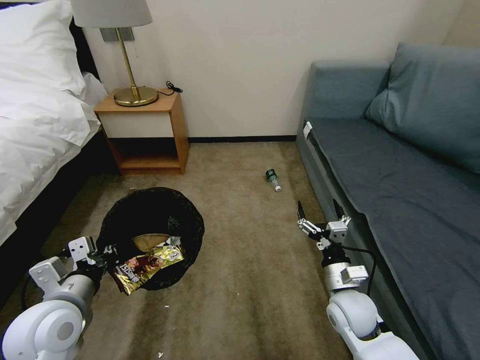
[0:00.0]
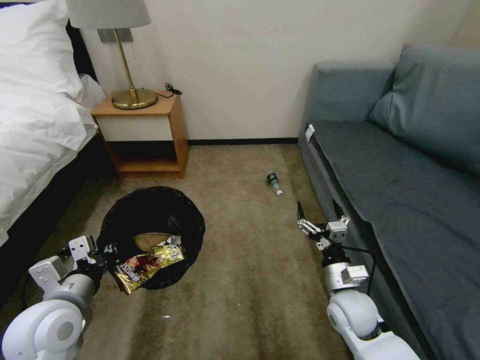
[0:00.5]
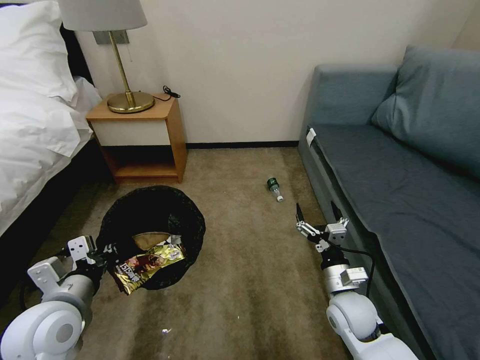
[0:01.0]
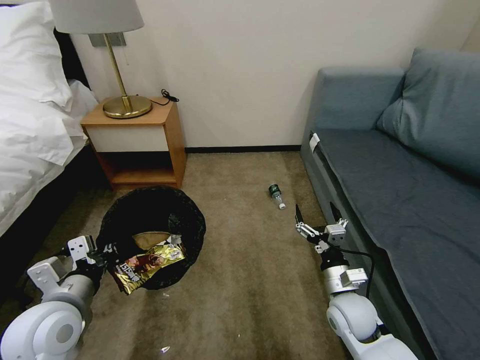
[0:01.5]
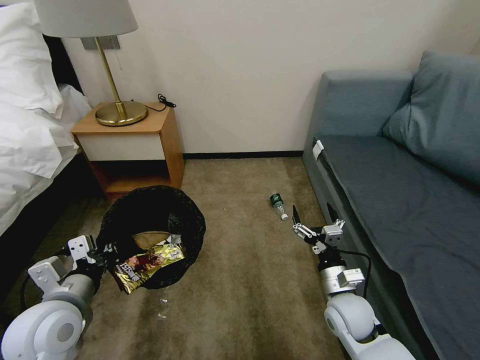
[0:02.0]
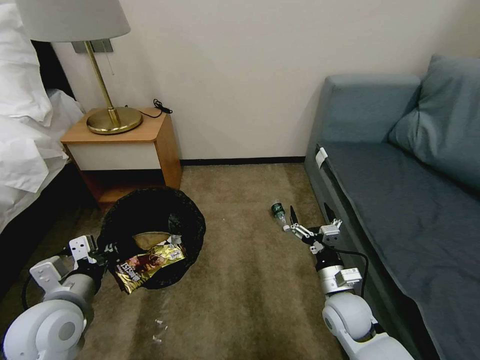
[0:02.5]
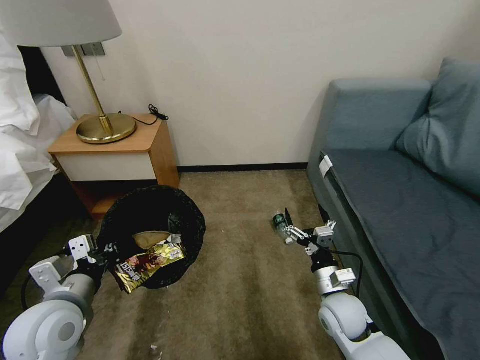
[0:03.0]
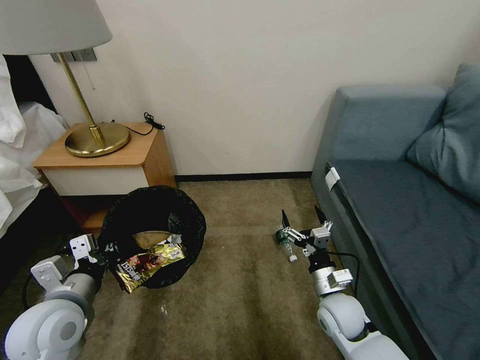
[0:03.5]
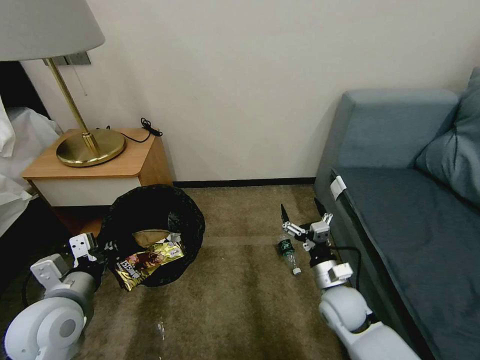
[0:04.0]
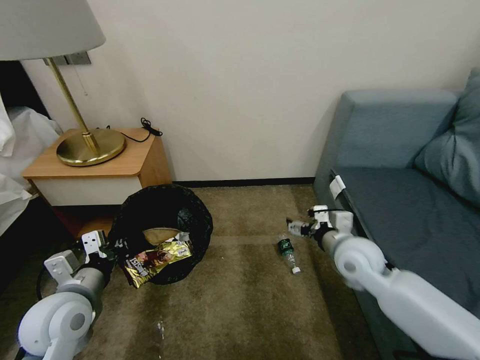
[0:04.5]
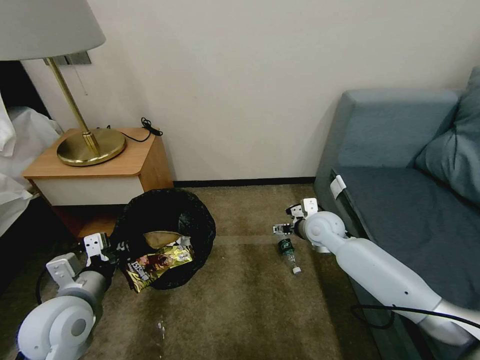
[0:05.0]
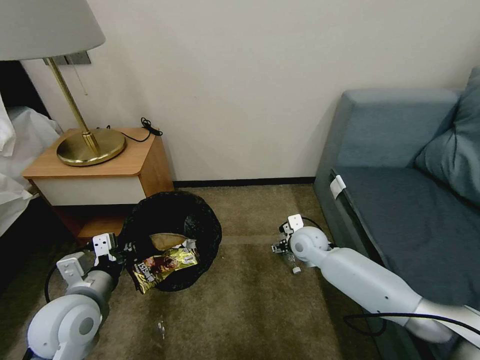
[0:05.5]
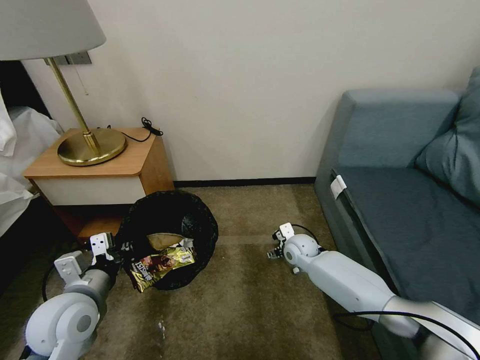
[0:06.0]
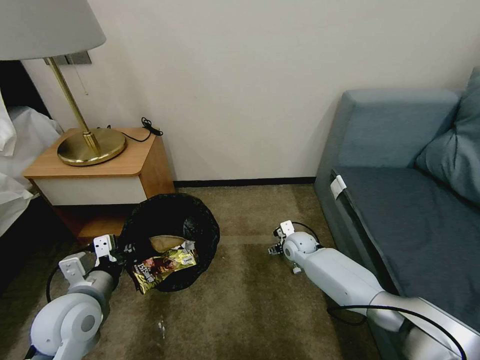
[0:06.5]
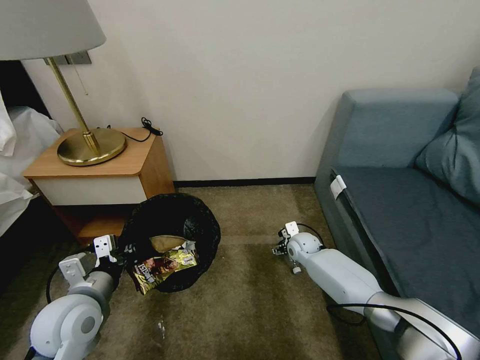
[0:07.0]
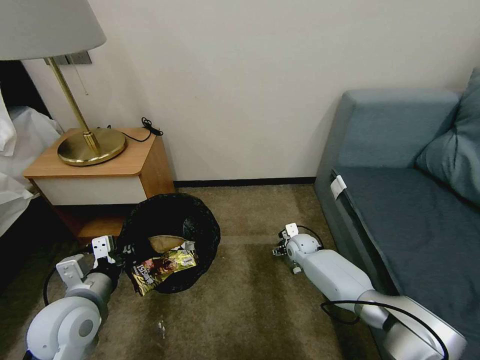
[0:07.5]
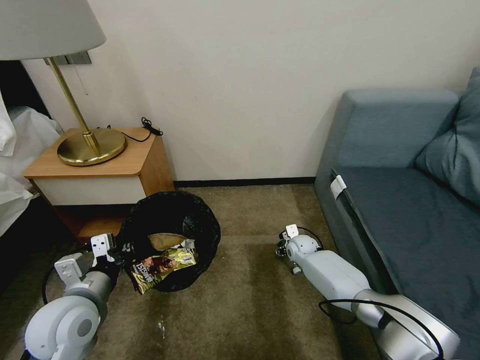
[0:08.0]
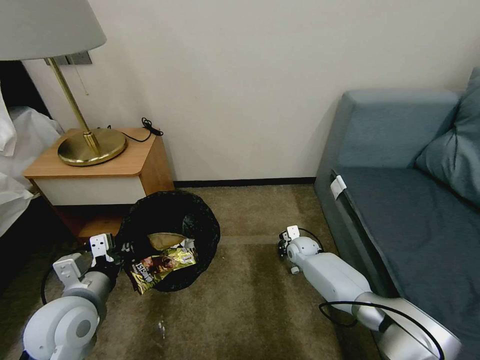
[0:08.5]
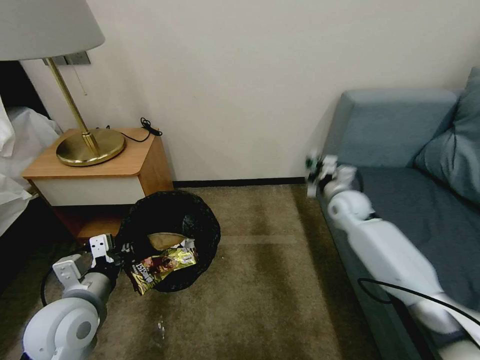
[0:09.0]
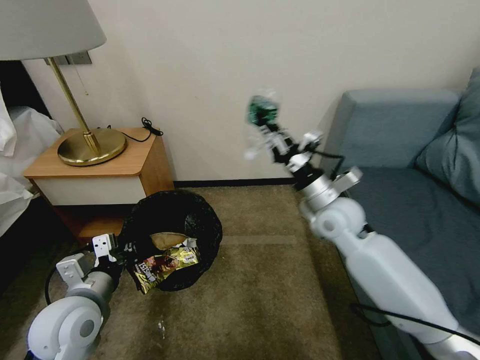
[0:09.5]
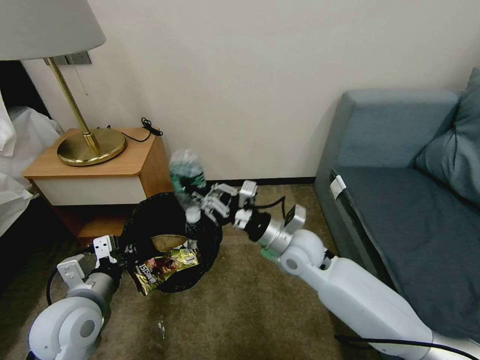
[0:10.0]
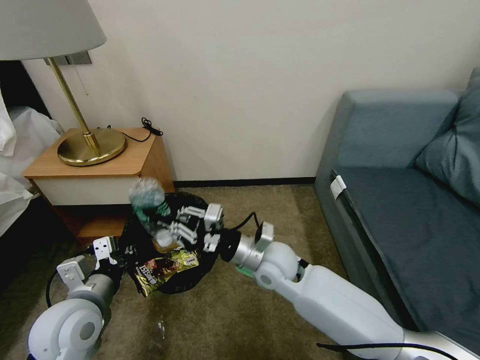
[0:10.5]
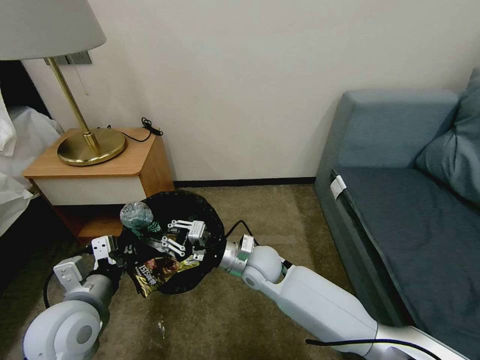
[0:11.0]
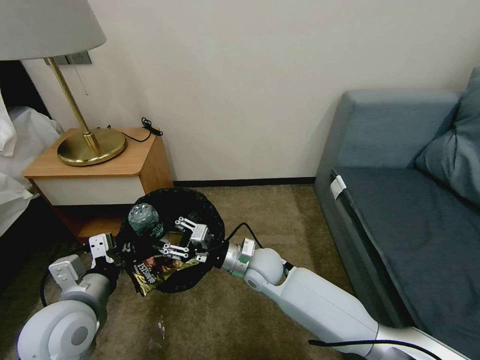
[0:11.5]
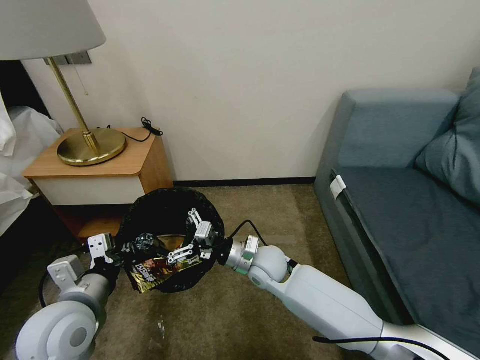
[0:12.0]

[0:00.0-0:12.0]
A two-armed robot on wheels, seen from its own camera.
Task of the whole recording: Pick up the trash bin, then pick up the garbage on the floor and place it into the trash bin.
0:04.0 to 0:06.0: The right gripper travels forward by roughly 20 cm.
0:06.0 to 0:08.0: The right gripper goes approximately 5 cm downward.
0:08.0 to 0:10.0: The right gripper travels upward and backward by roughly 25 cm, and closes.
0:10.0 to 0:12.0: The right gripper shifts some 10 cm downward and to the left, and opens.

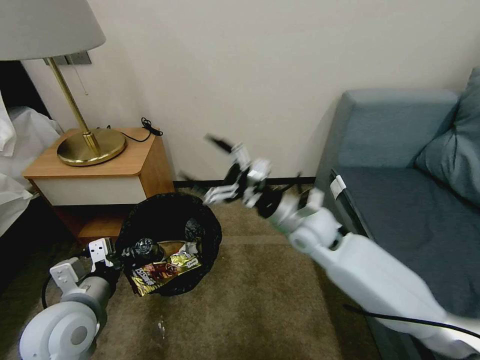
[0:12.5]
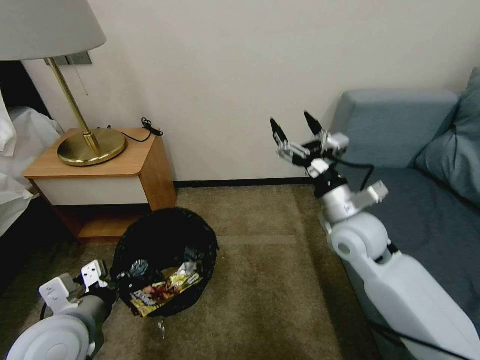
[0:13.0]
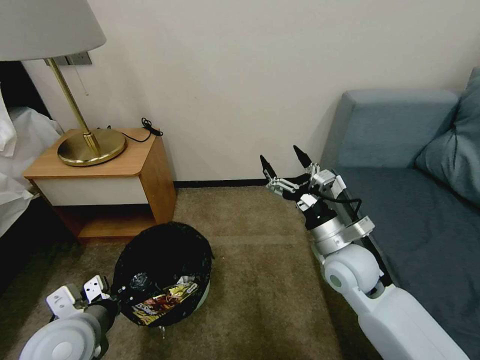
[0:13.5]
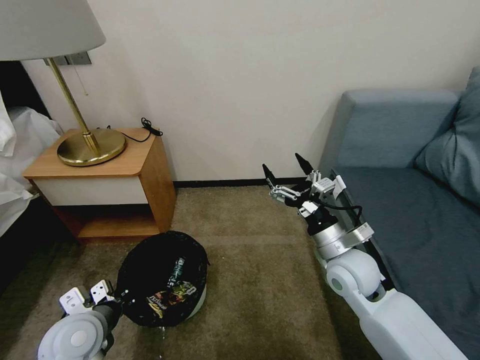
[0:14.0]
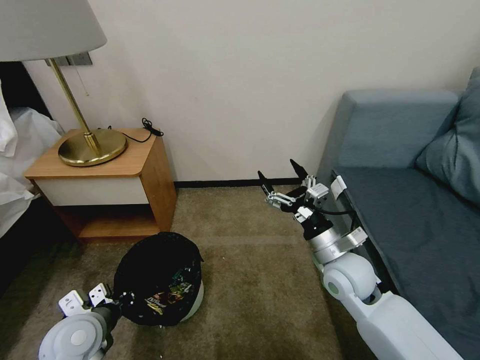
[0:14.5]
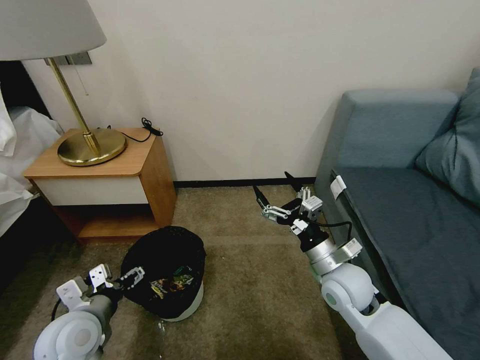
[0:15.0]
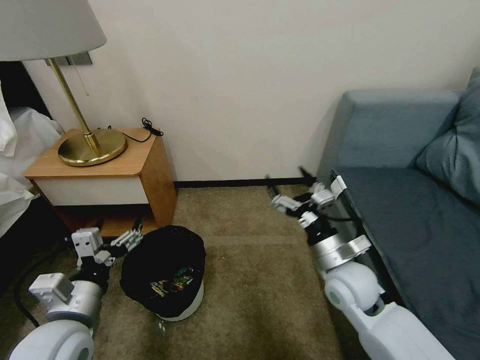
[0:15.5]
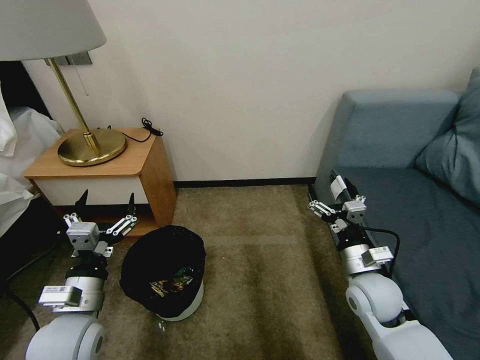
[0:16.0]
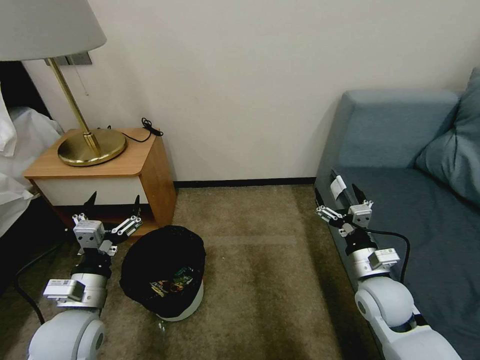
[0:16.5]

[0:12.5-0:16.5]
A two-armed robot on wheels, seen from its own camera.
Task of the whole recording: Pick up the trash bin, then pick up the garbage on the floor and place it into the trash bin.
0:12.5 to 0:14.5: The right gripper heads downward, backward and to the right, covering about 15 cm. Meanwhile the left gripper shifts some 5 cm downward, and opens.
0:14.5 to 0:16.5: The left gripper opens its fingers; the right gripper shifts roughly 5 cm to the right.
